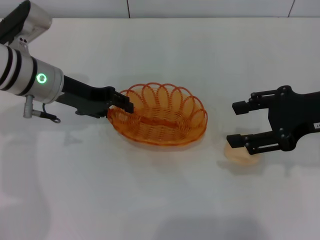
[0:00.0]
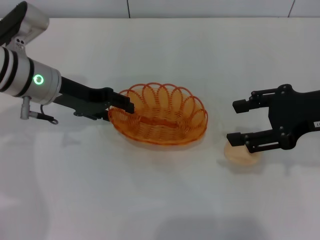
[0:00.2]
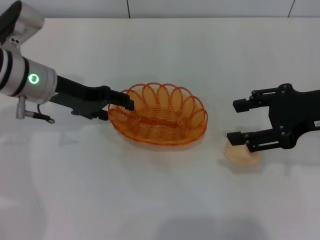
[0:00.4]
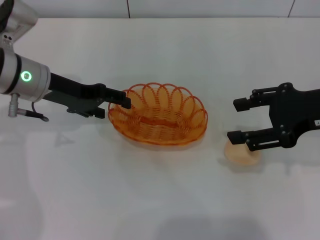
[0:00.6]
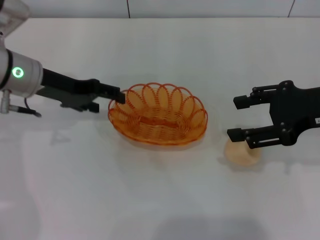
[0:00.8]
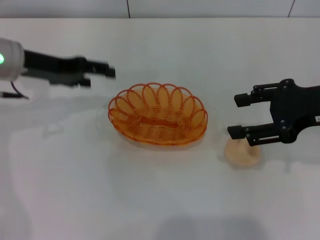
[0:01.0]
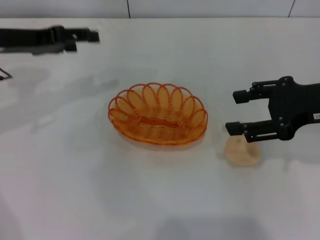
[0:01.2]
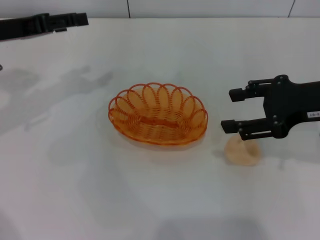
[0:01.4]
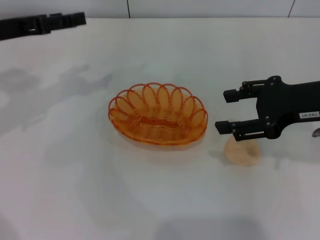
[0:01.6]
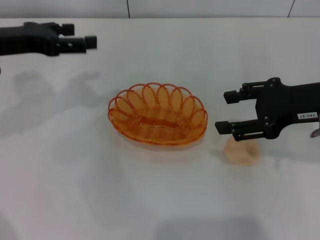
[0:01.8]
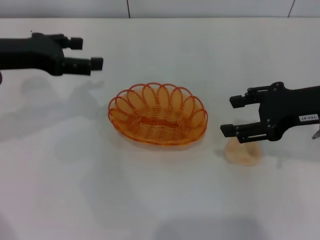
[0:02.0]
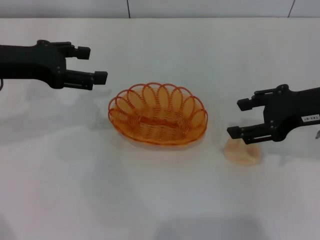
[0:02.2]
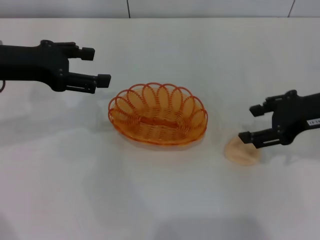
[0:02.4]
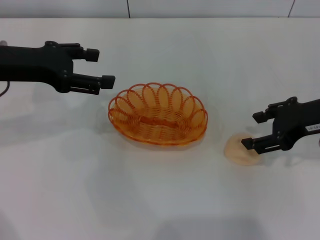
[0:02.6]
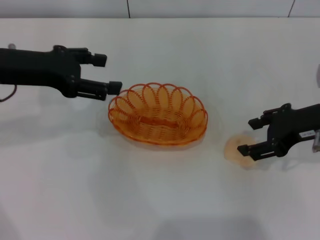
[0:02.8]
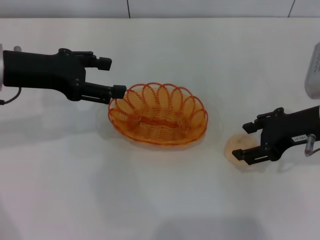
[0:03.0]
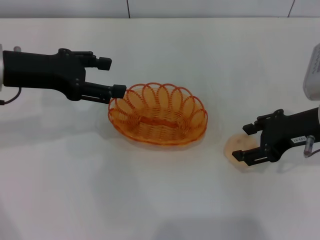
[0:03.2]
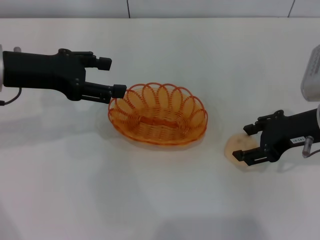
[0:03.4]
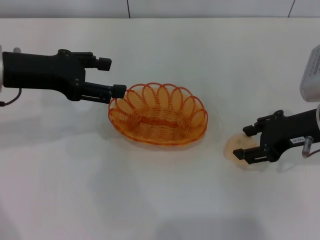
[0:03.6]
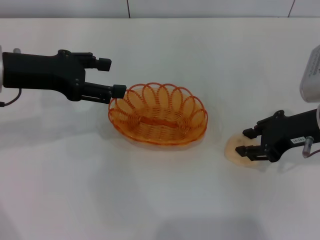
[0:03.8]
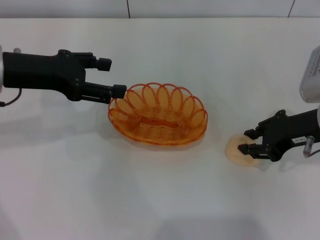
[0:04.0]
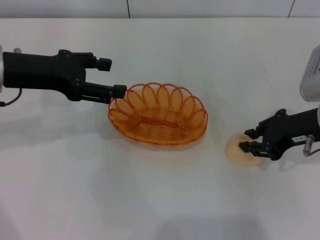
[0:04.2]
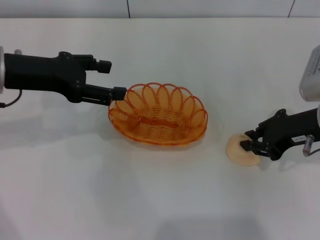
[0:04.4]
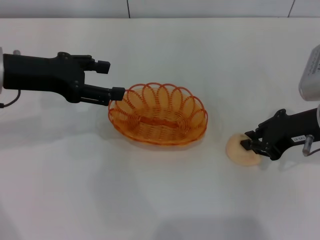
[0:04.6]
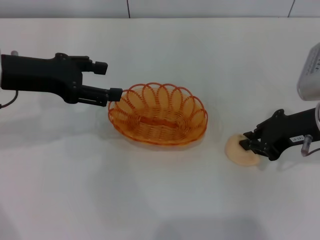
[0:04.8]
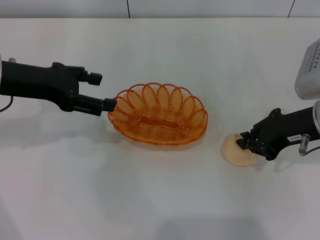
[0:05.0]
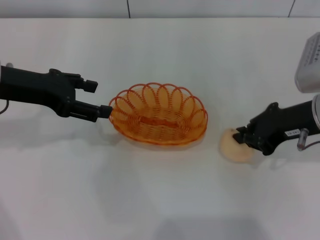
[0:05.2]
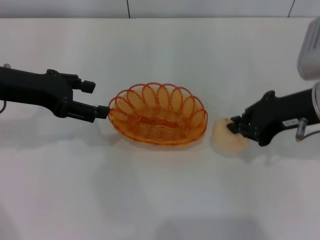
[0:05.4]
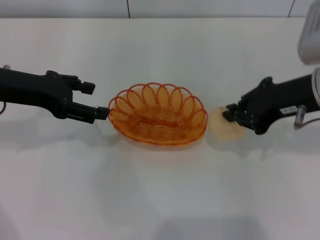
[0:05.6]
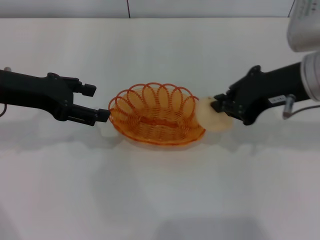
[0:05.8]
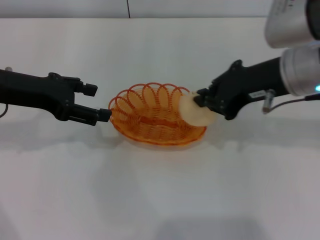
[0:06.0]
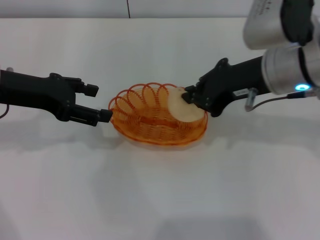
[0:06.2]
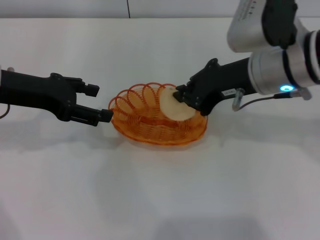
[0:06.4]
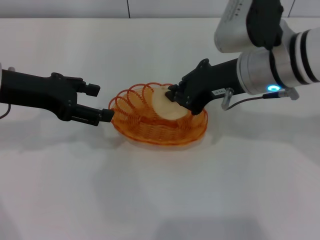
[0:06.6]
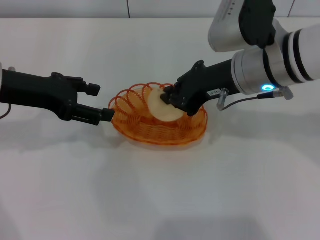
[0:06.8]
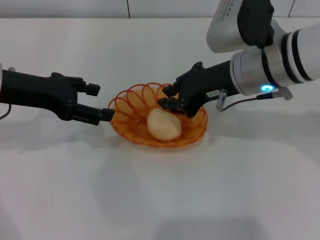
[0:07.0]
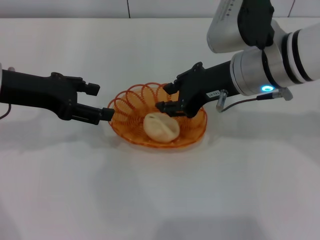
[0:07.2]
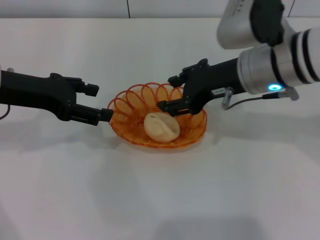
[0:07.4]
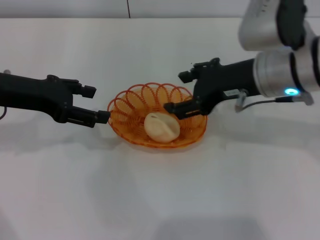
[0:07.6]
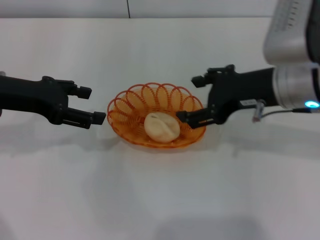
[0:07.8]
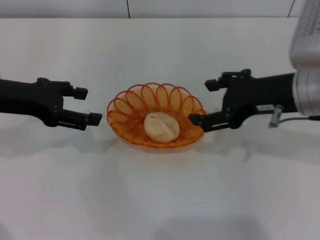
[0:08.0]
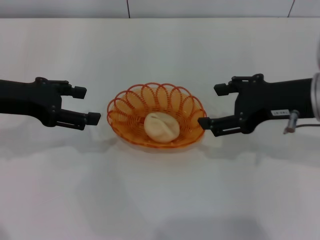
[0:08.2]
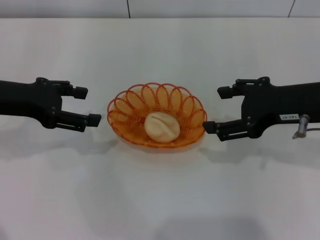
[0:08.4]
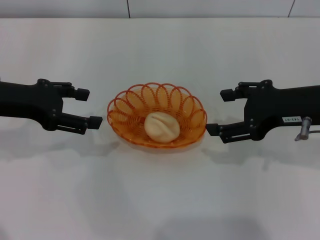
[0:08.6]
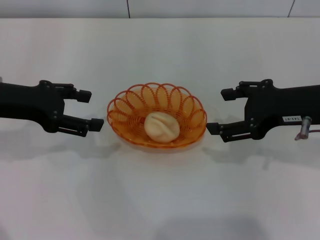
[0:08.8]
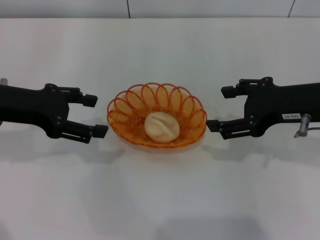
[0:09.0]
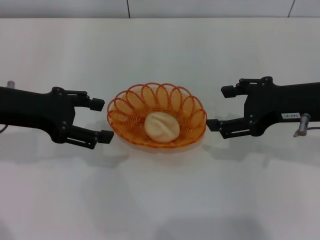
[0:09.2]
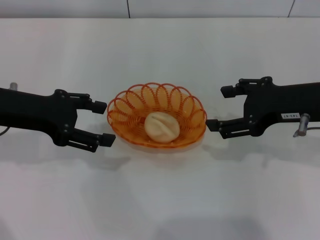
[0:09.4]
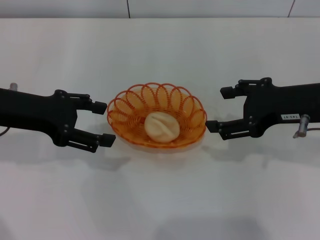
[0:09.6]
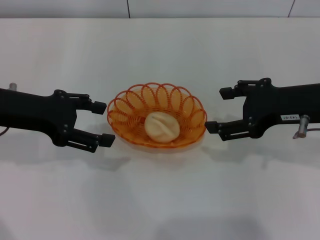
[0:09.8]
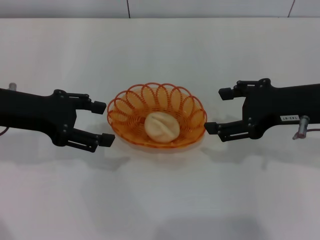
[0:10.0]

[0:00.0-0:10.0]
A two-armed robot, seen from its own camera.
Step, 0:01.0 to 0:05.6: Pick up the egg yolk pastry with the right gripper.
Step, 0:06.0 to 0:08.0: Place the egg yolk pastry into the basket with the right gripper.
0:00.0 to 0:01.4: The left gripper is displaced to the left and upward by about 10 cm, and opens up.
0:02.8 to 0:04.2: The right gripper closes its fingers.
0:04.2 to 0:05.8: The right gripper shifts about 5 cm upward, and closes up.
0:05.8 to 0:07.2: The right gripper moves to the left, approximately 5 cm.
0:07.2 to 0:08.6: The right gripper heads to the right and backward, covering approximately 10 cm, and opens its fingers.
0:08.6 to 0:10.0: The grippers stay close to where they were, moving slightly.

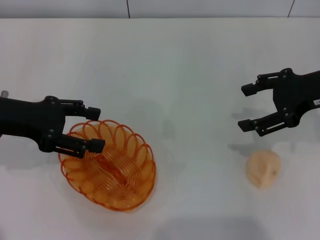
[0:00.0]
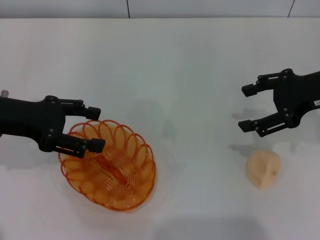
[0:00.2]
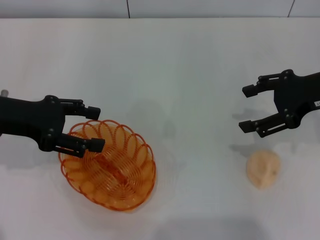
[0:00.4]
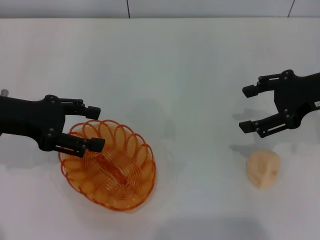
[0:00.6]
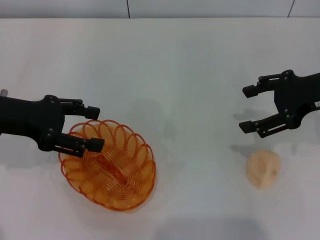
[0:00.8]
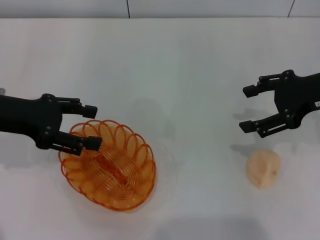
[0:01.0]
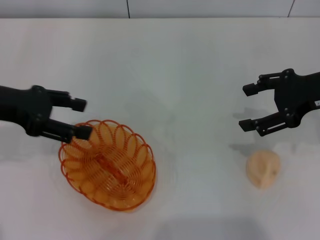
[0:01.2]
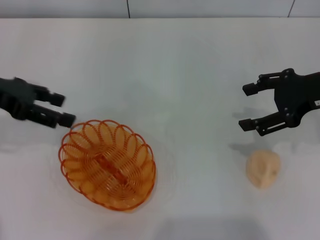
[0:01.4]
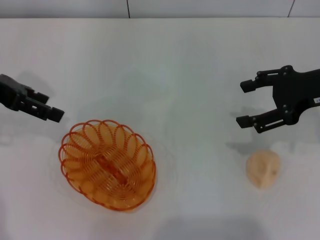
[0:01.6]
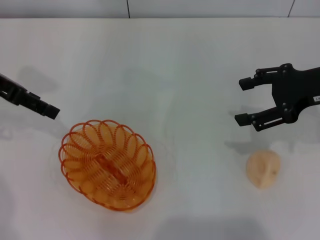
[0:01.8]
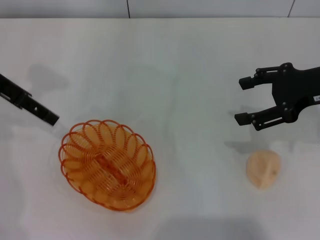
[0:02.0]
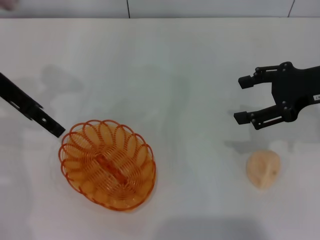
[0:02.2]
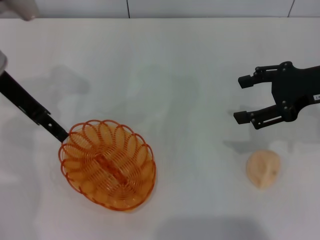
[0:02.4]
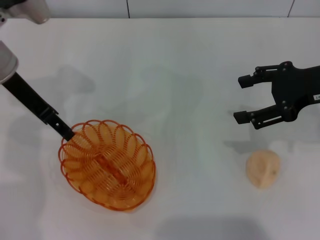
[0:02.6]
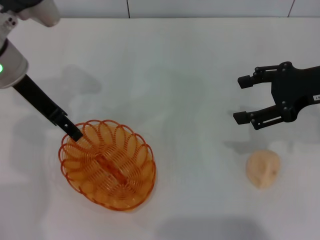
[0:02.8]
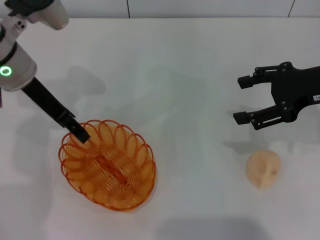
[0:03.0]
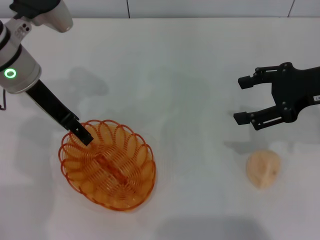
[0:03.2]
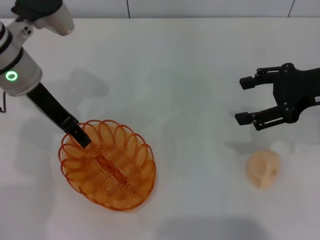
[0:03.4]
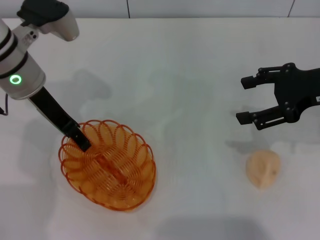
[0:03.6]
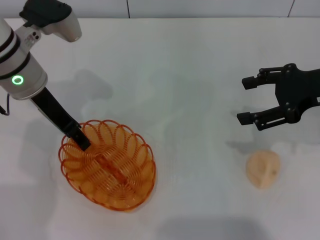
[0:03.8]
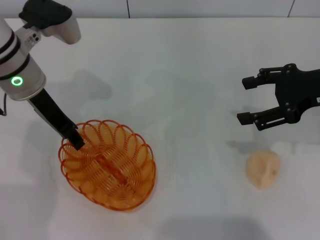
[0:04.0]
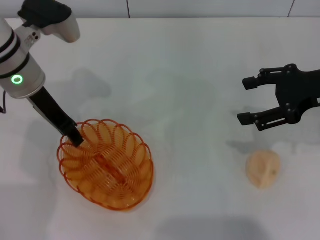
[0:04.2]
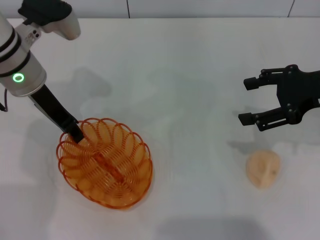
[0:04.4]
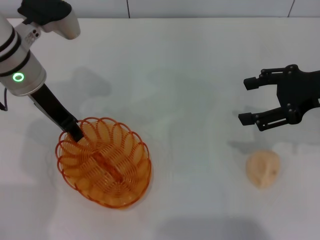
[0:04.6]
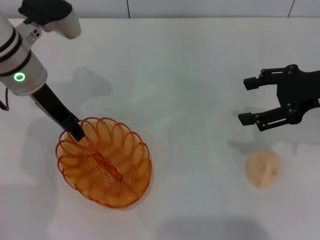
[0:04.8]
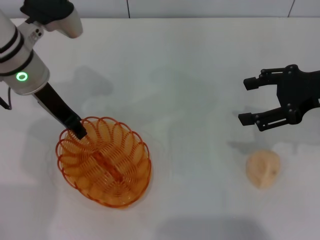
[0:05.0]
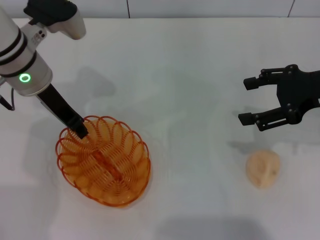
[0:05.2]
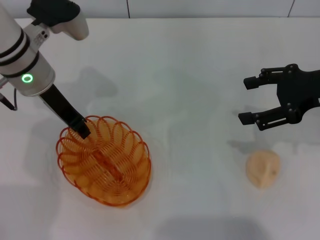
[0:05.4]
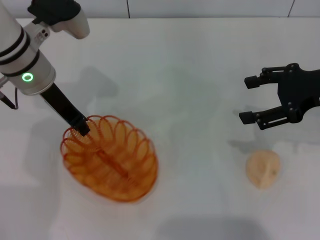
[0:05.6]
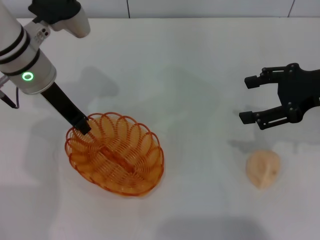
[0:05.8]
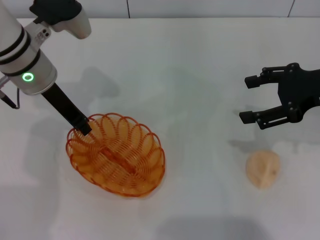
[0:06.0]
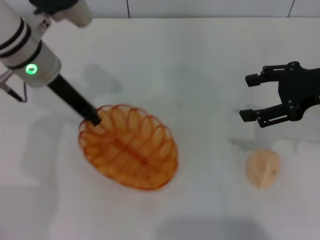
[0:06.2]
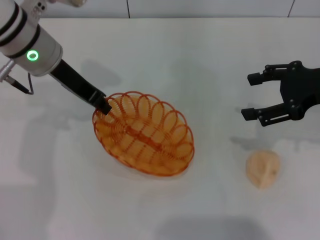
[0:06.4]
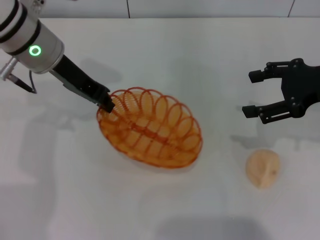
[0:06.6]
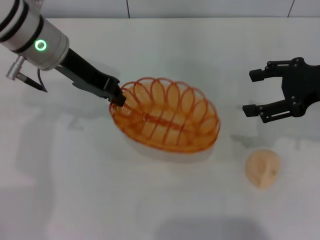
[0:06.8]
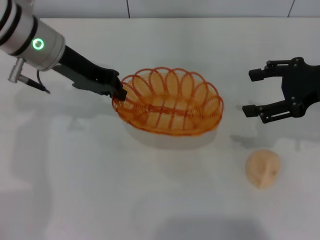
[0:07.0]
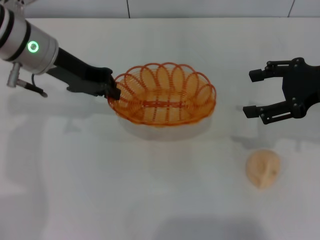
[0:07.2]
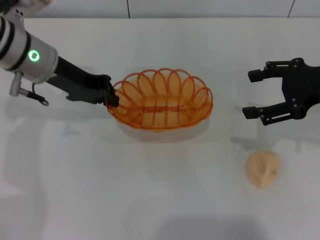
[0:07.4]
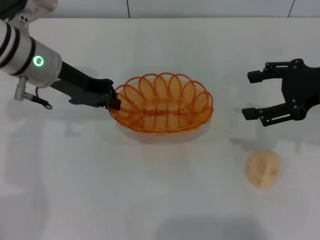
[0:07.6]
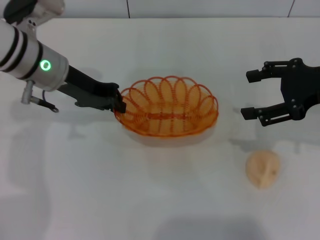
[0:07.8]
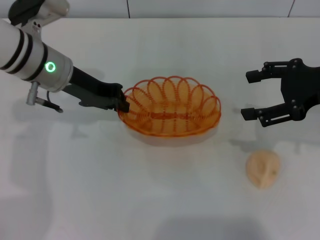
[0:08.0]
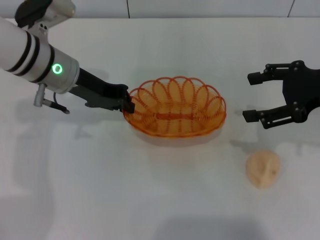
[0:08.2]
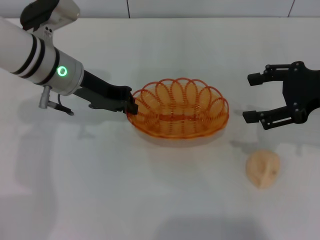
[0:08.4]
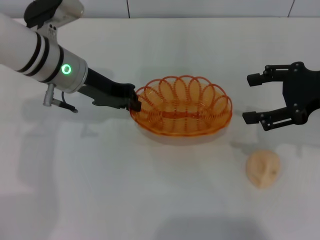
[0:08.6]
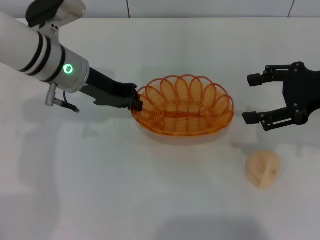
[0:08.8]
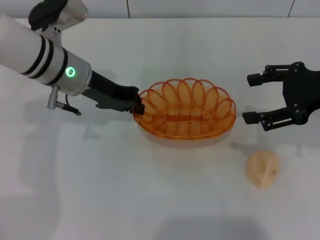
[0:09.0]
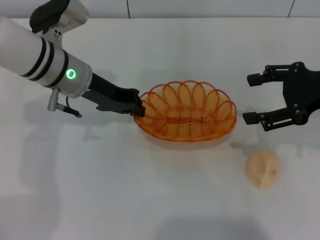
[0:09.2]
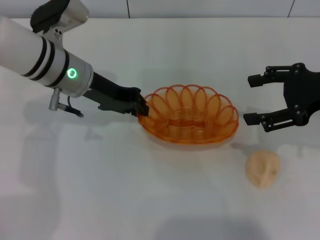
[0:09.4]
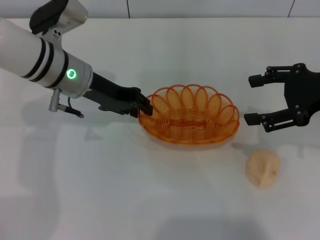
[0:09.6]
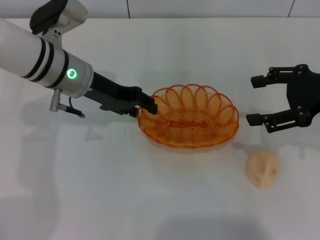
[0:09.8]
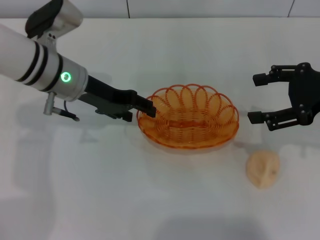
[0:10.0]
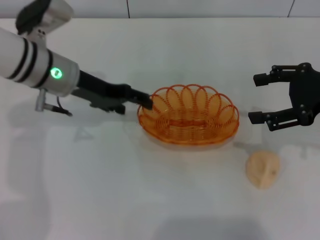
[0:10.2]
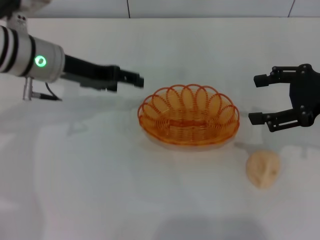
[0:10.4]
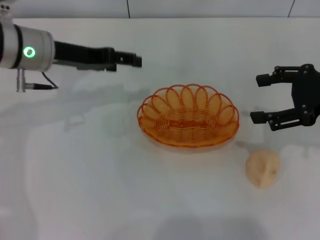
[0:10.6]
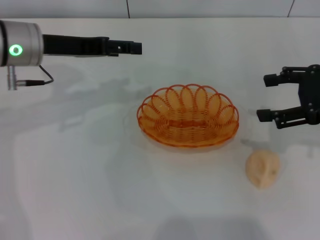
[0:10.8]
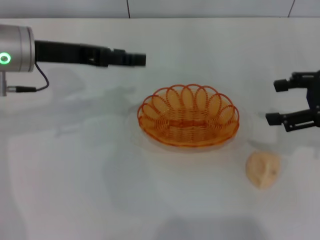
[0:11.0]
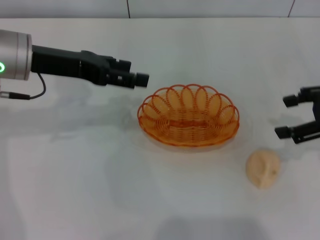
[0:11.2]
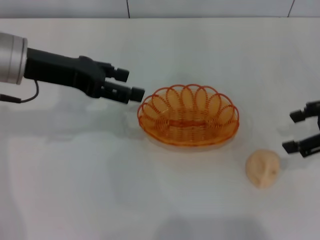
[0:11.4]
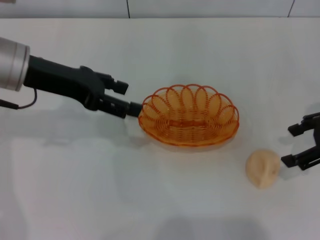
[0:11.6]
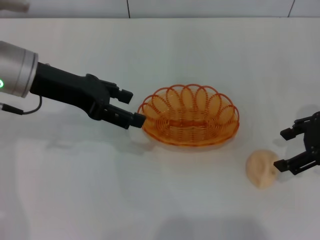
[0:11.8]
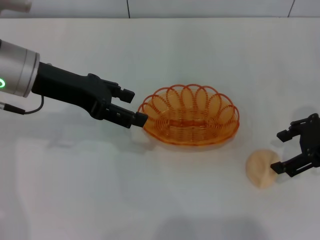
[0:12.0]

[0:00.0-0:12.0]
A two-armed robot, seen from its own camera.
Step, 0:00.0 to 0:06.4: Pick up the basket with the left gripper.
Step, 0:06.6 to 0:10.2: Place the basket in the center of view with the left gripper.
0:00.0 to 0:01.6: The left gripper heads upward, covering some 5 cm.
0:01.6 to 0:03.0: The left gripper shifts roughly 10 cm to the right.
0:03.0 to 0:04.4: The left gripper closes.
0:04.4 to 0:06.0: The left gripper closes up.
0:07.6 to 0:09.0: The grippers move only a little.
0:09.0 to 0:10.4: The left gripper opens.
0:10.4 to 0:12.0: The left gripper changes place by some 5 cm.
